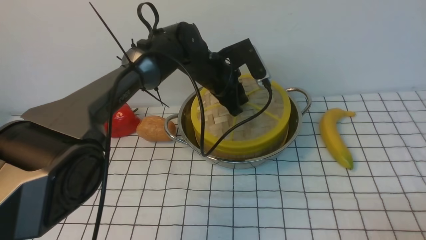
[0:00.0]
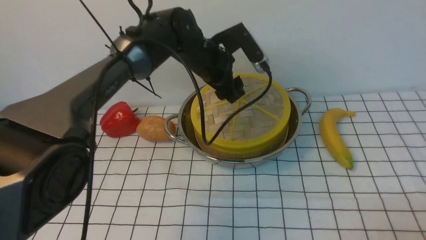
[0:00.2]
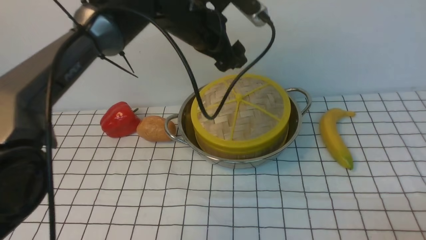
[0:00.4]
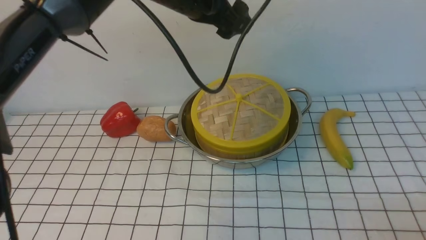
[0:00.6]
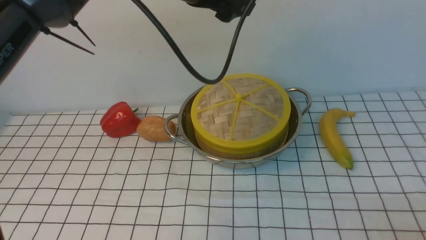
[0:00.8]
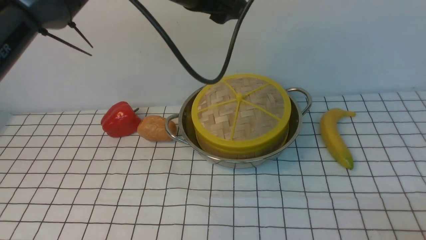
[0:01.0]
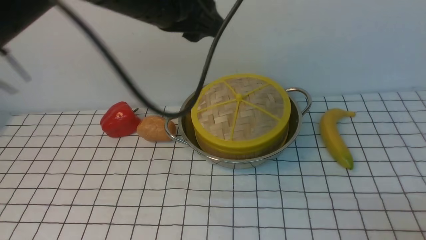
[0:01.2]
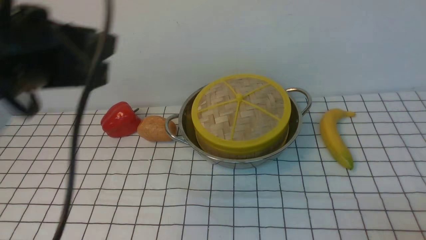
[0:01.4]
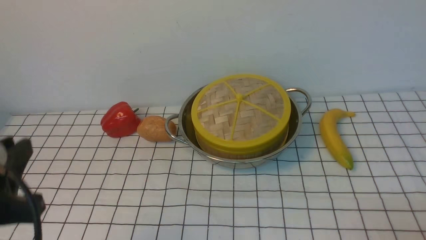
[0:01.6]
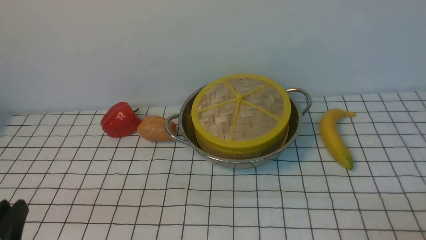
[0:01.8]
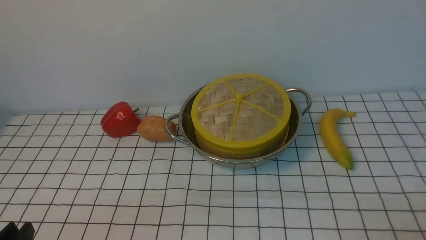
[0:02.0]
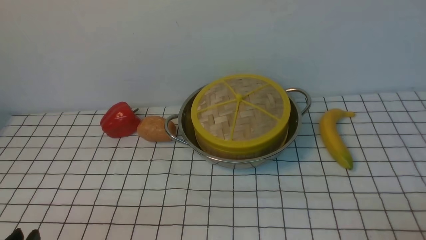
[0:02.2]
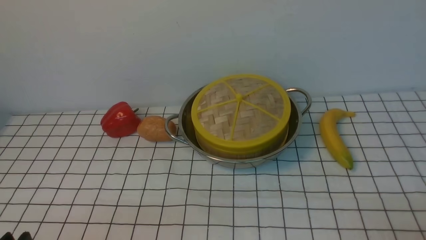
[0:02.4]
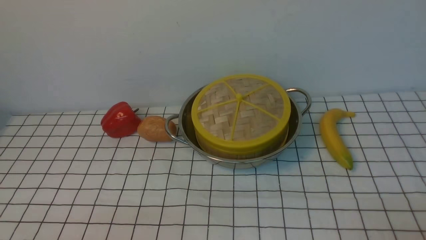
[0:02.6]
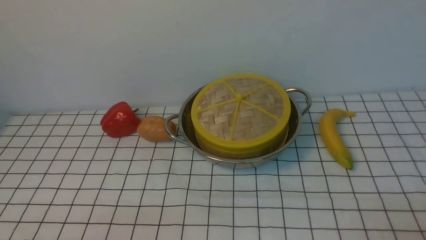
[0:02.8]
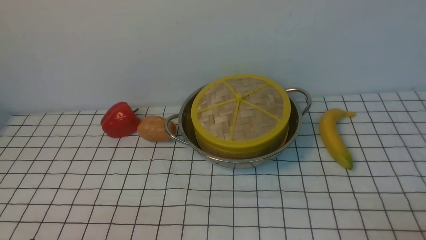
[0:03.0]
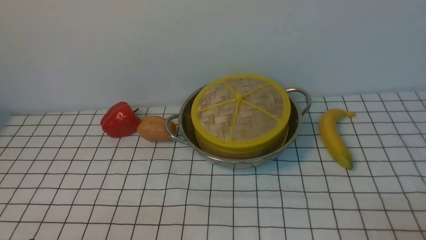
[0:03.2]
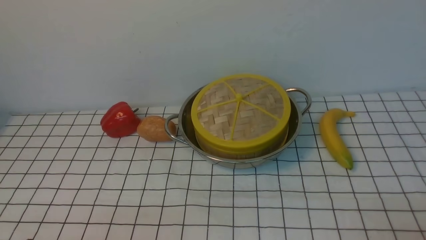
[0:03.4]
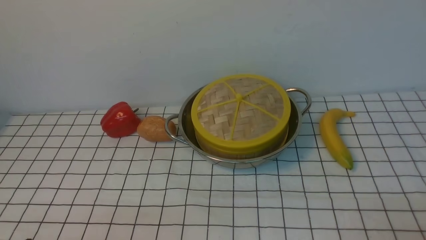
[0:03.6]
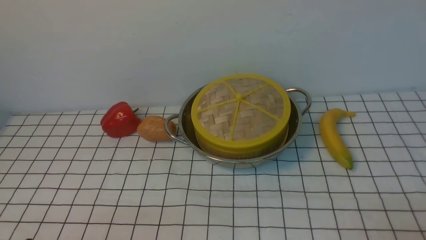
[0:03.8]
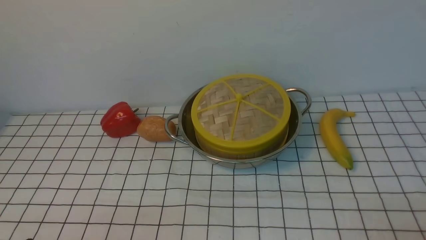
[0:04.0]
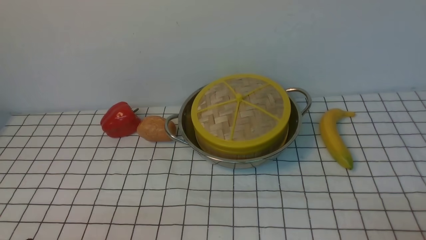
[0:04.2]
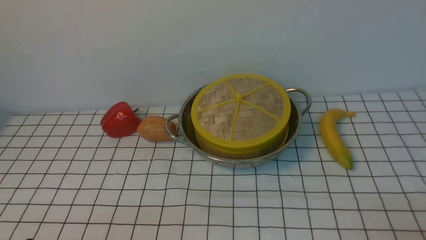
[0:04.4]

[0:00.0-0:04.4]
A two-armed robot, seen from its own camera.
Task of the whole recording: place the steamer in the pot on the white tablecloth, and put the lid on the steamer.
0:00.0 to 0:01.4: The left gripper shifts some 30 cm backward, upward and to the left, and opens, then closes again.
0:01.4 to 0:03.0: The left gripper heads downward and backward, covering some 30 cm.
0:03.0 to 0:04.4: Both grippers stay put.

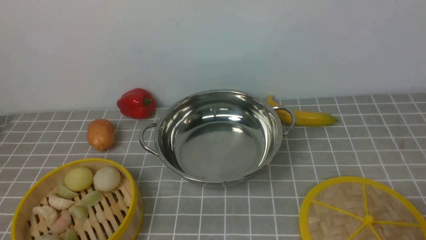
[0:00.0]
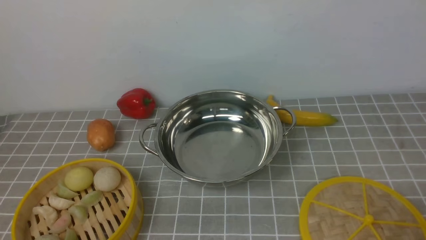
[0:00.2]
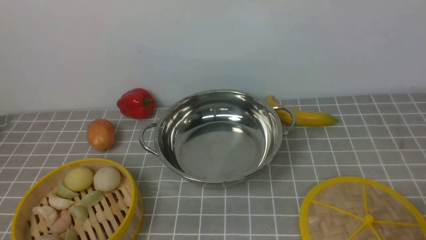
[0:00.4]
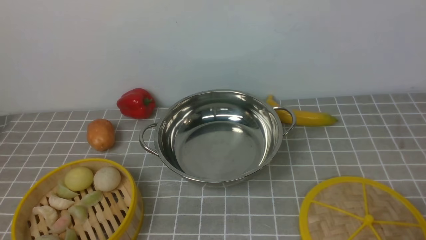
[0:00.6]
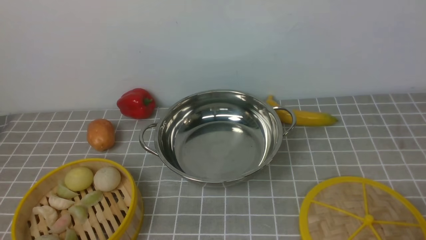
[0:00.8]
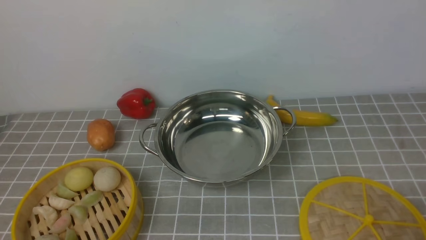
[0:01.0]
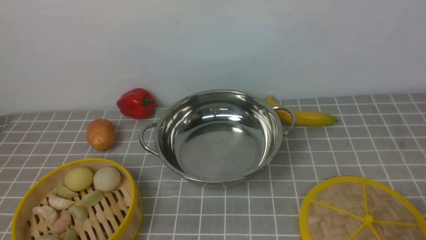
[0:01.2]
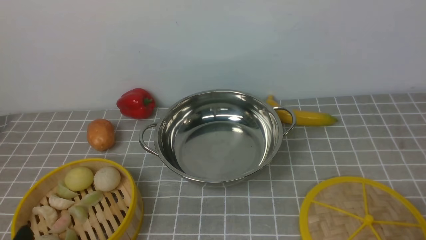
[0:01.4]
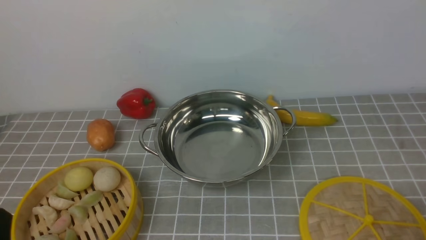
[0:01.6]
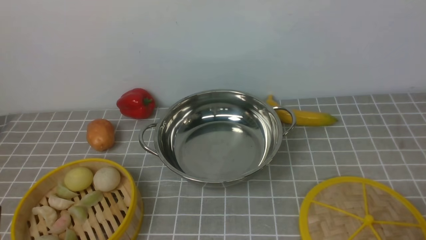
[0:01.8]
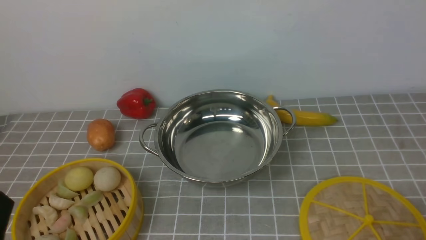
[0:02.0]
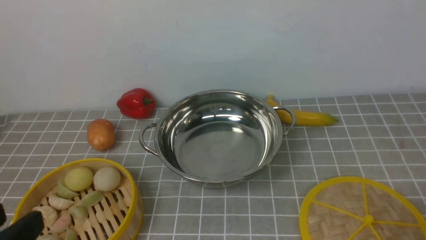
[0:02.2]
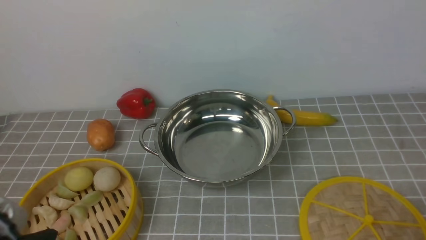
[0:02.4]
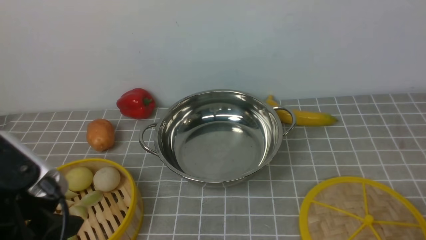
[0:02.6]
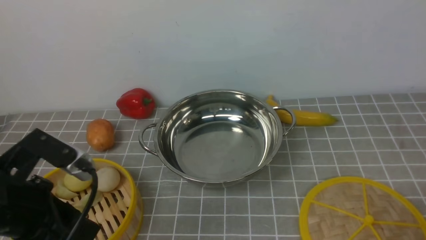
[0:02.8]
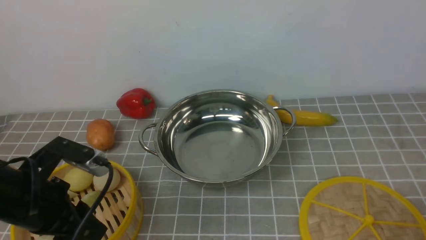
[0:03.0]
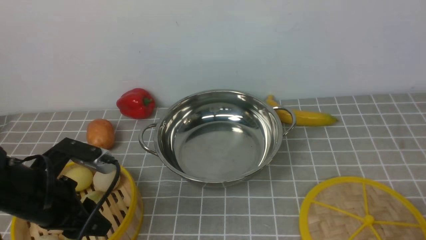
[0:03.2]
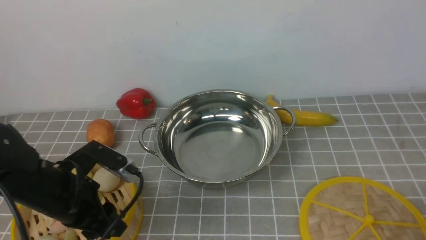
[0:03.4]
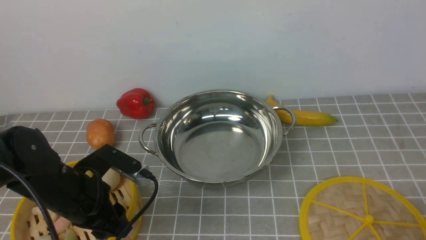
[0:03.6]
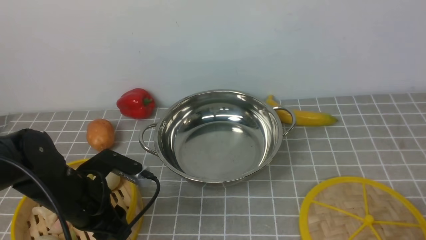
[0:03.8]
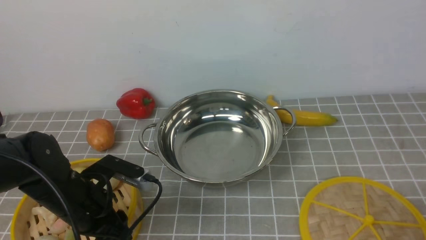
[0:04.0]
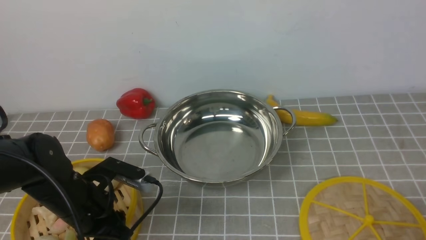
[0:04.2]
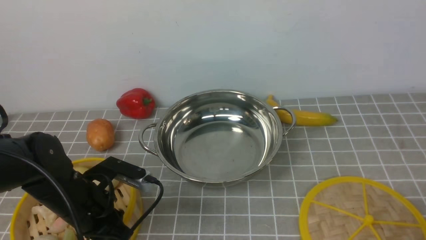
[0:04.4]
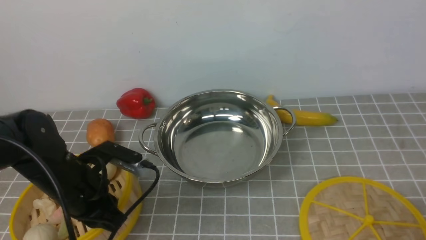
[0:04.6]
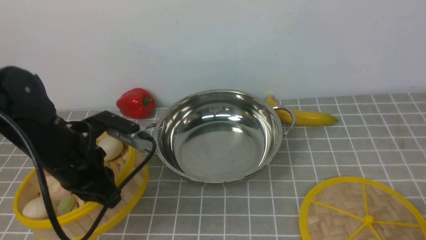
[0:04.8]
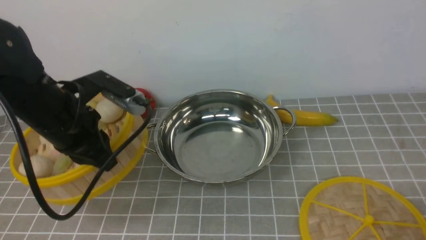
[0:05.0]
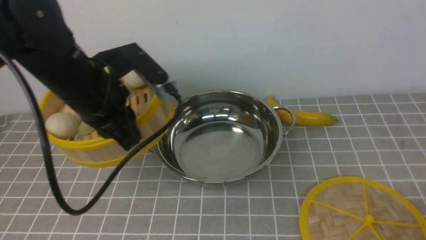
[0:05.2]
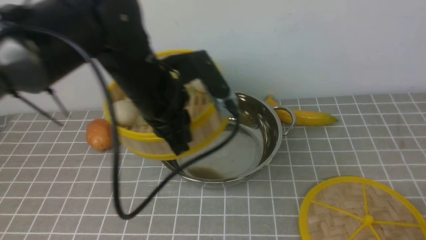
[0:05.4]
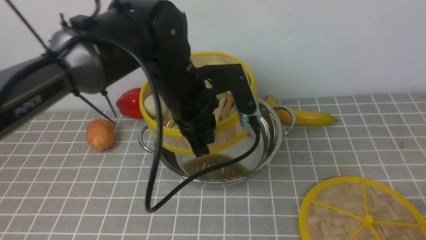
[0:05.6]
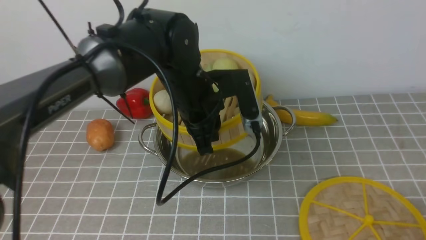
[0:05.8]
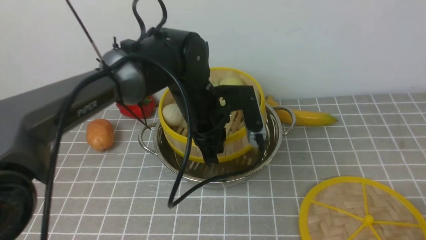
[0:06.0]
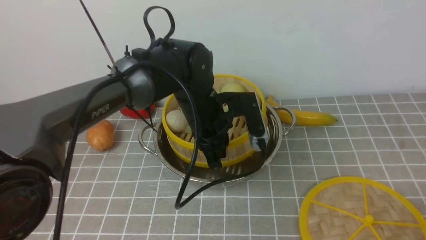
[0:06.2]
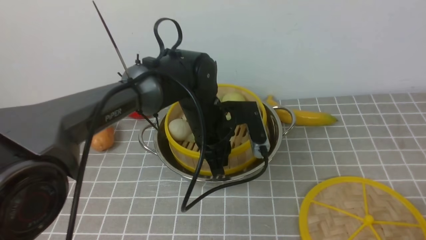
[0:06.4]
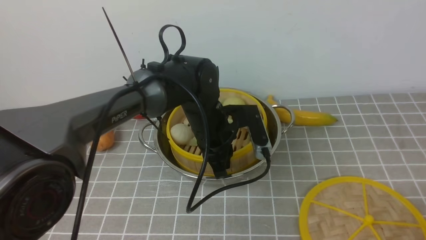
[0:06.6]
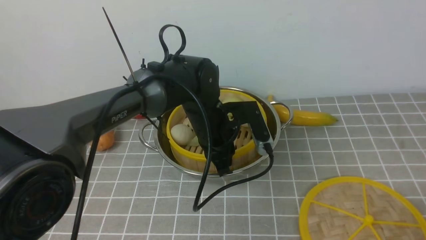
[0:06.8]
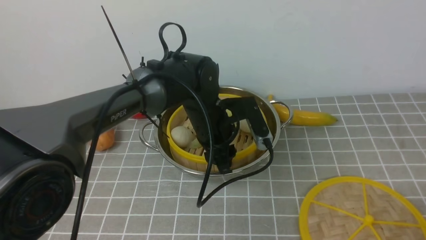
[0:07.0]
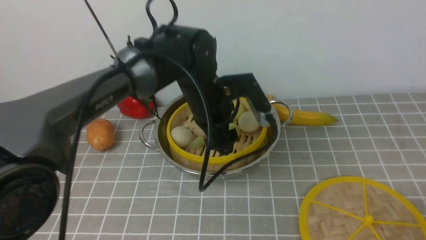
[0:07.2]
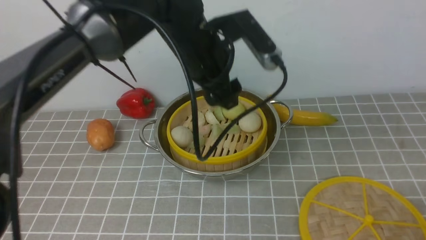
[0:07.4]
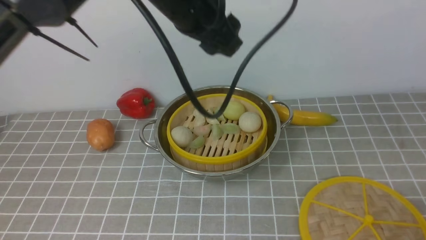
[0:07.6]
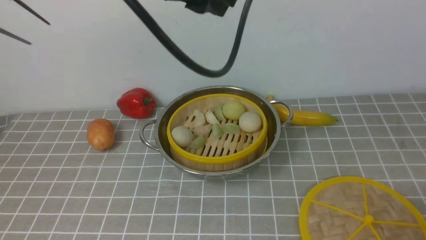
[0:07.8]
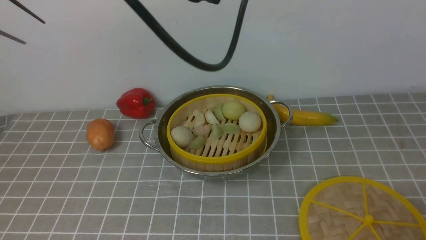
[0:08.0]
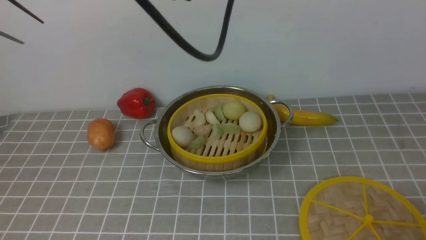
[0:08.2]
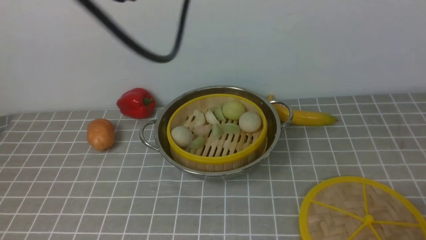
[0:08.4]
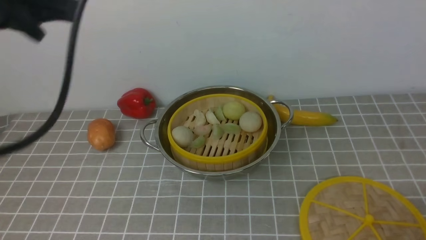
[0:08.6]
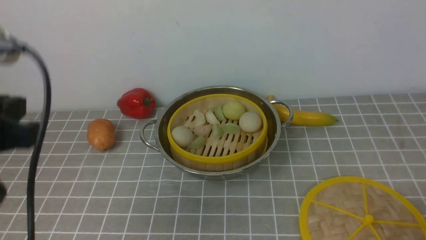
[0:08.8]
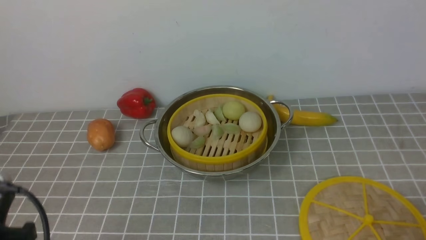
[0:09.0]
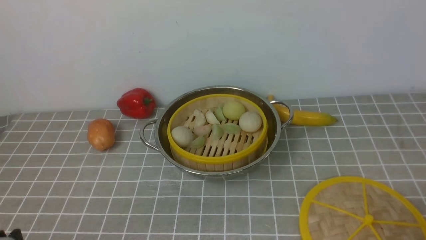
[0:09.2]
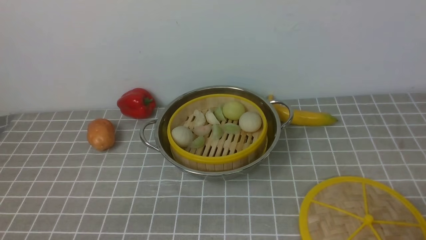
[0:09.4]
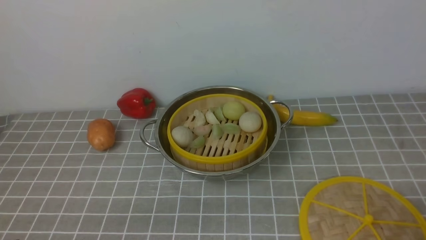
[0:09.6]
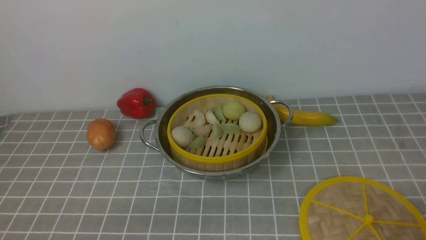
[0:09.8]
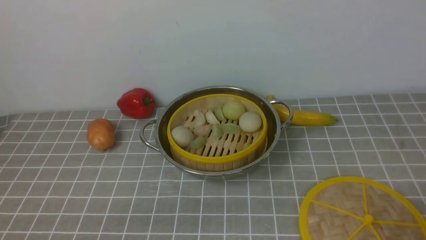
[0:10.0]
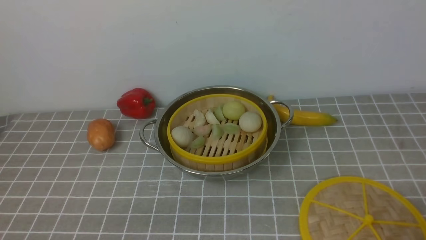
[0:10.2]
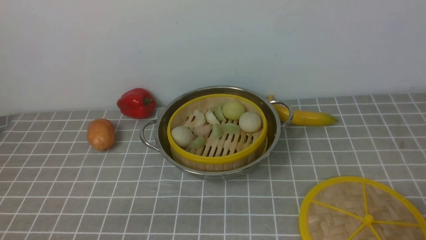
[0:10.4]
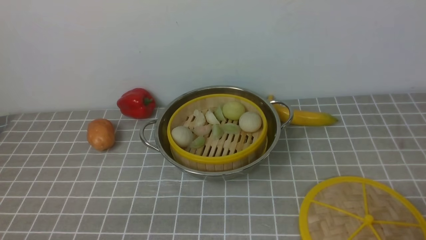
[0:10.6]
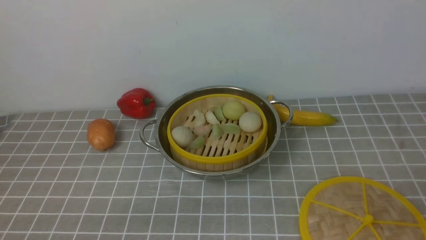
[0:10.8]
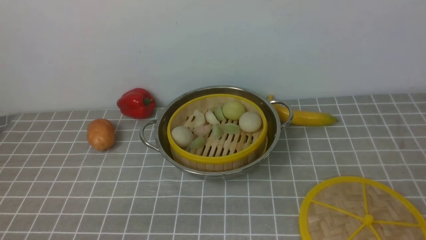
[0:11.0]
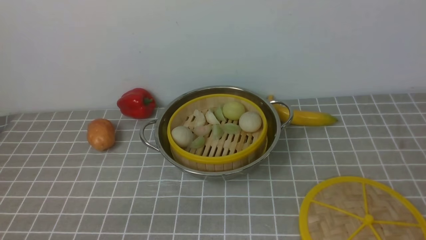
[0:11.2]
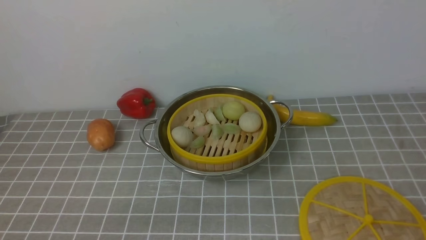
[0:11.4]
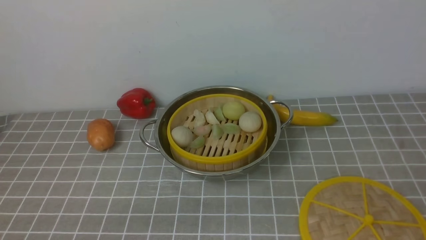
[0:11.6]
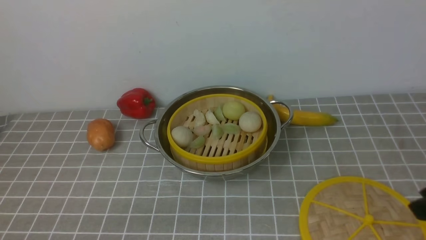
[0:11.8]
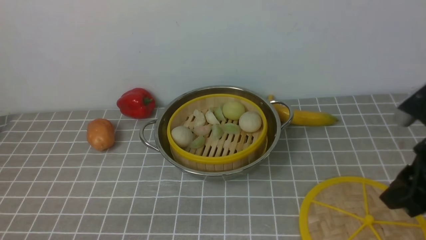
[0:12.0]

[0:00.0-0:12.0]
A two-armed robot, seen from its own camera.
Task of the whole recording: place the steamer in the pot on the grey tablecloth, and put the lid on the steamer.
Step, 0:00.0 to 0:04.6: use the left arm to lift the steamer closest to it.
Step, 0:04.8 to 0:07.0: use the left arm to put the steamer into the iron steamer pot in the middle.
0:01.6 to 0:03.0: The left gripper moves forward, about 15 cm.
0:03.0 to 0:04.4: The left gripper moves downward, about 5 cm, and closes.
0:04.4 to 0:06.0: The left gripper moves to the right and forward, some 20 cm.
0:06.0 to 0:07.6: The left gripper is displaced upward by about 15 cm, and opens.
0:07.6 to 0:09.0: The left gripper shifts about 35 cm backward, to the left and downward, and closes.
0:09.0 to 0:10.4: The left gripper moves downward, approximately 10 cm.
0:10.4 to 0:12.0: The right gripper travels forward and upward by approximately 20 cm.
